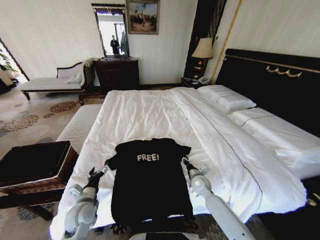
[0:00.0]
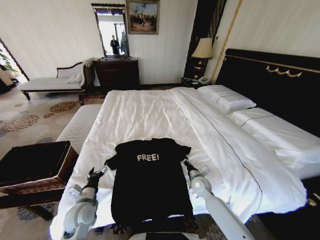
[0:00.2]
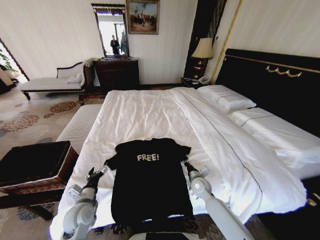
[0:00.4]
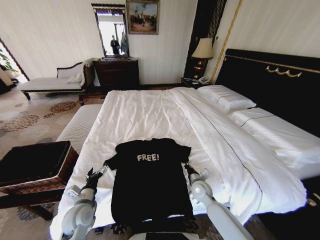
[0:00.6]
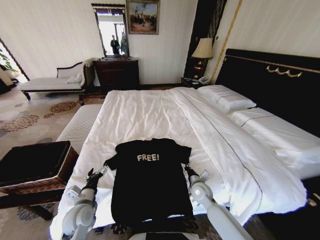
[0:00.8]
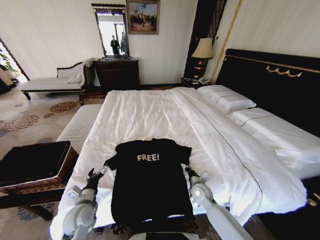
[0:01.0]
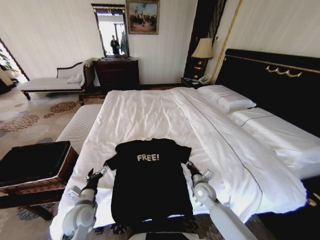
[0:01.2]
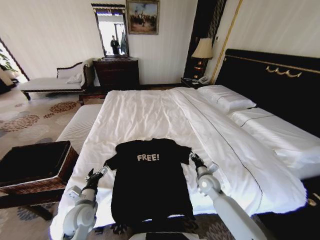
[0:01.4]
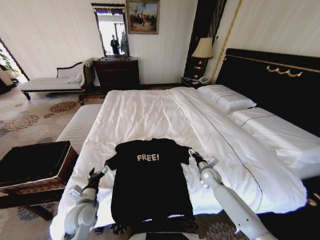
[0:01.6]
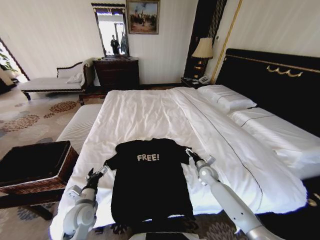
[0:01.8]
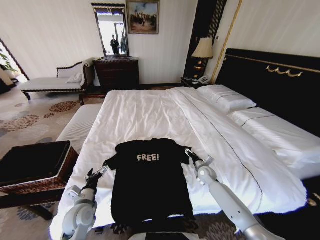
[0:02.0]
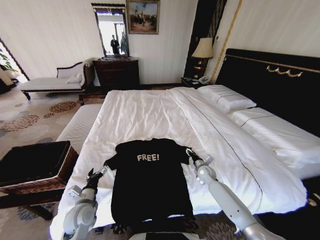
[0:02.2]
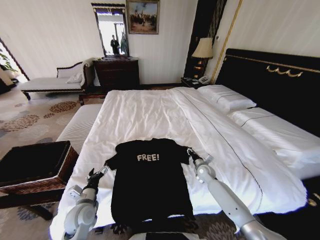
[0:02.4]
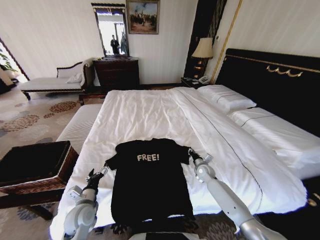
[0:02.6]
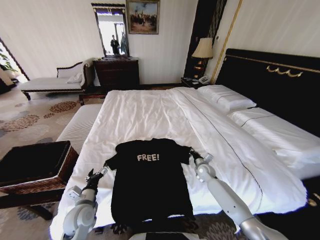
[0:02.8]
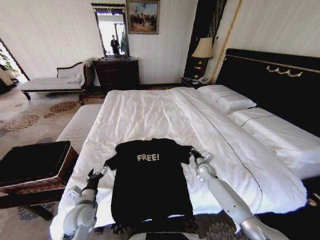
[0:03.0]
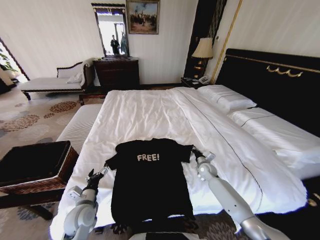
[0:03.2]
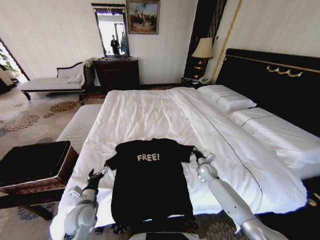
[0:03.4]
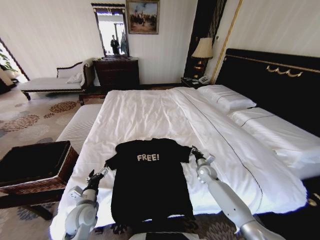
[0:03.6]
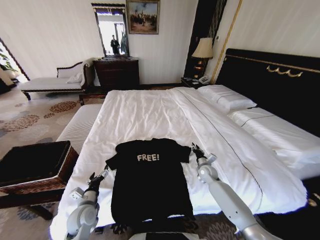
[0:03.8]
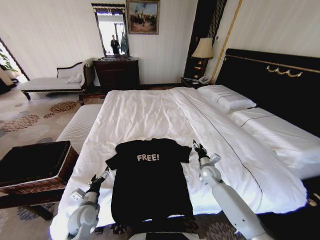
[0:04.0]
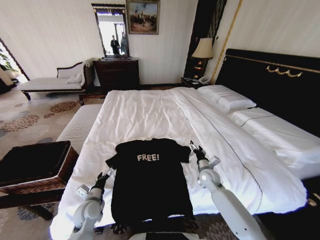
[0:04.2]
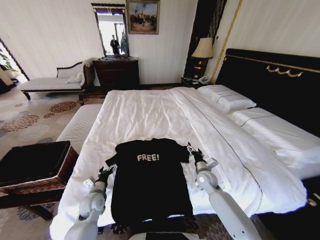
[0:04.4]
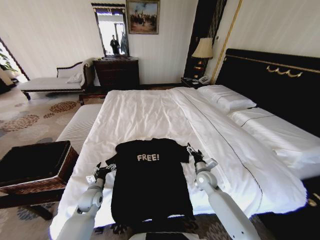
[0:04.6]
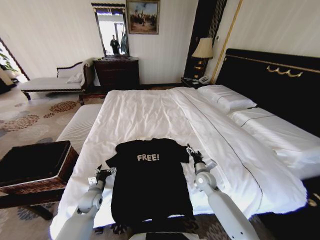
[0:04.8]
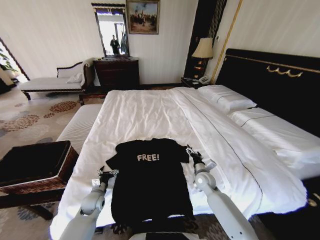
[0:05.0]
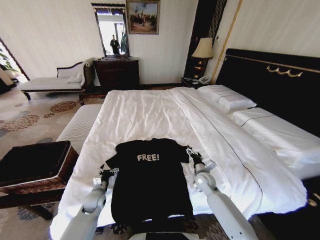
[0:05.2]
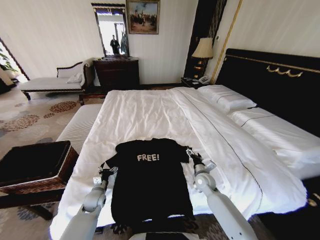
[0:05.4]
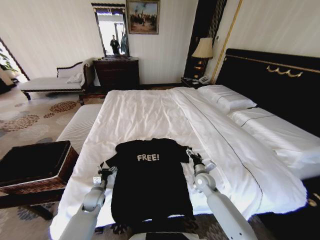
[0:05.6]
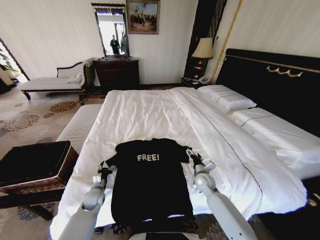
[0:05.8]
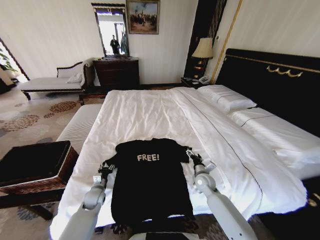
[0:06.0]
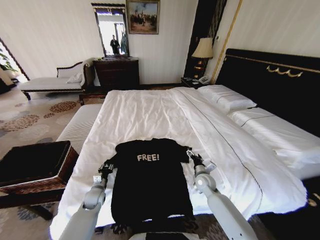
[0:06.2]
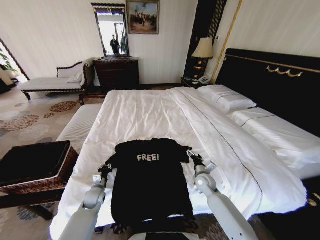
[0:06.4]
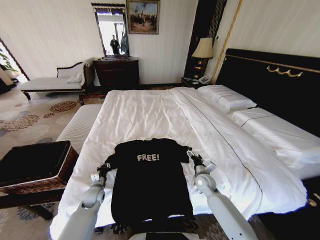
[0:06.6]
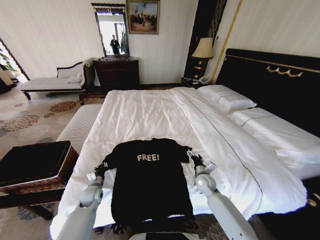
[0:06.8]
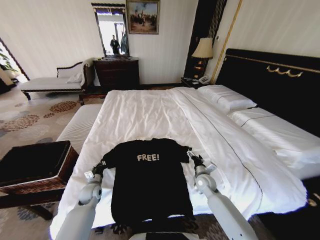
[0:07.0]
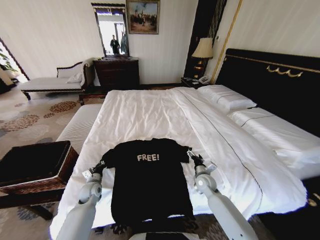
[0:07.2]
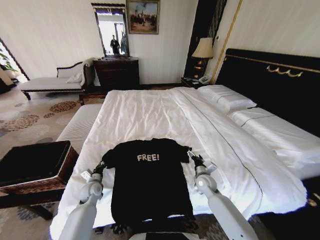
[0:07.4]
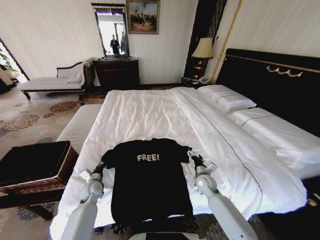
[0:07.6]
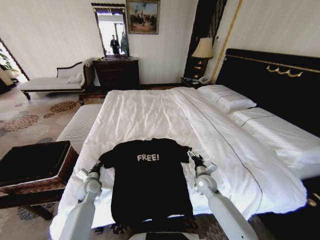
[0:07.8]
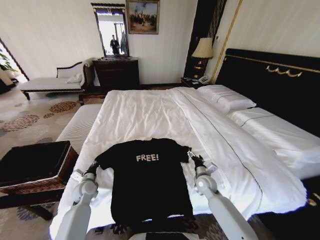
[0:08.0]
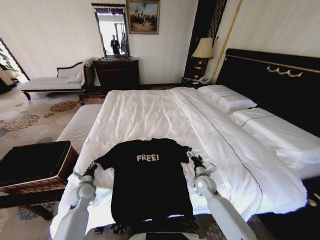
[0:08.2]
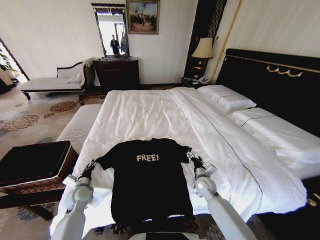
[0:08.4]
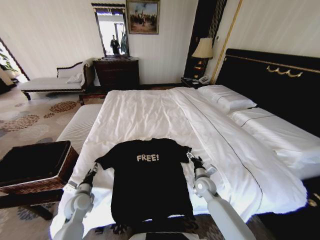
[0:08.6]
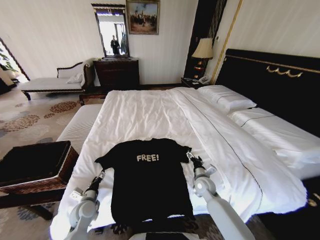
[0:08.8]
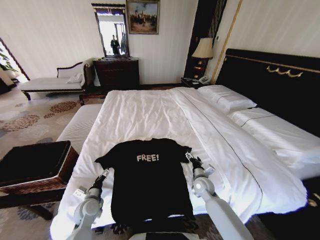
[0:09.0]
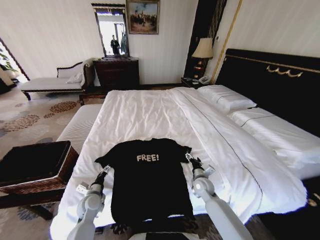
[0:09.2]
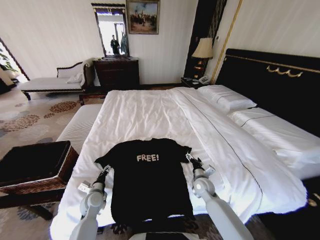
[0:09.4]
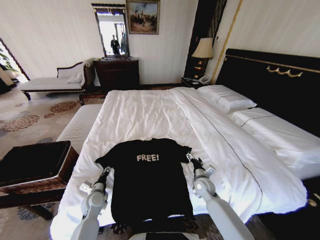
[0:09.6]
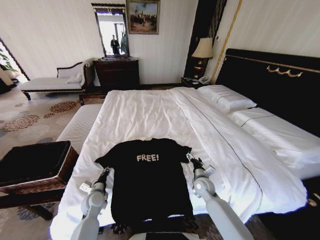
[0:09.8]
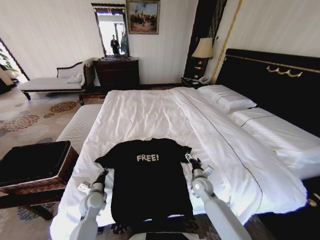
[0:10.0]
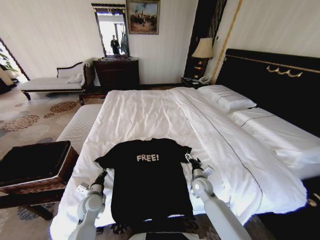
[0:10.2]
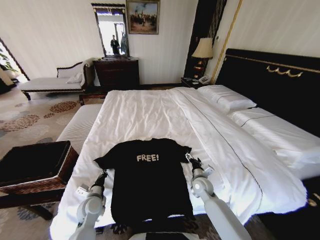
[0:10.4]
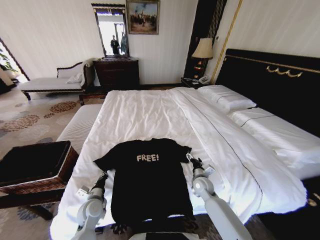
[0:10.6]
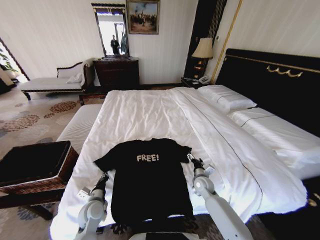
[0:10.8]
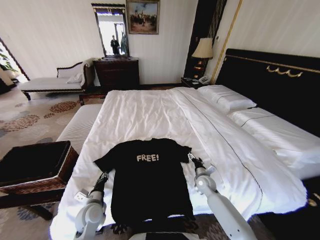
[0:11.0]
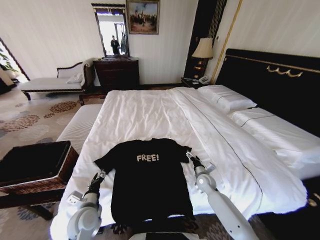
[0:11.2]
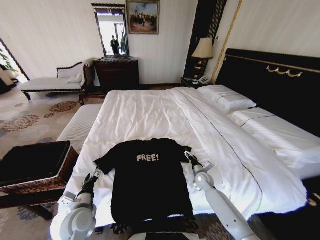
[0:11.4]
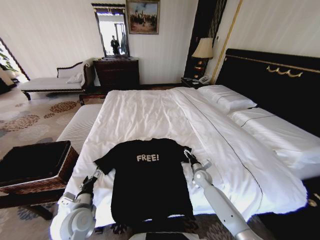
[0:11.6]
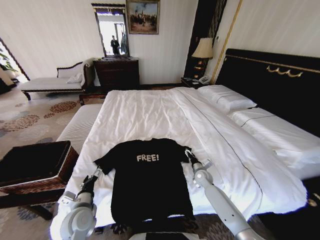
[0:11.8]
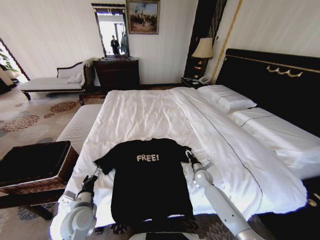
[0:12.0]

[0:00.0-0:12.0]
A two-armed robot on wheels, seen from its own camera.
Task of the whole recording: Fold the clothes on the bed and place them into the basket.
0:00.0 to 0:01.6: The right gripper shifts some 5 cm to the right, and closes and opens again.
0:01.6 to 0:03.0: The right gripper closes its fingers.
0:03.0 to 0:04.4: The left gripper heads forward, covering approximately 5 cm. The right gripper heads backward, covering approximately 5 cm, and opens up.
0:04.4 to 0:06.0: The left gripper is displaced downward by about 5 cm, and closes up.
0:06.0 to 0:07.6: The left gripper closes.
0:07.6 to 0:09.0: The left gripper travels backward by some 10 cm, and opens its fingers.
0:09.0 to 0:10.4: The left gripper closes its fingers.
0:10.4 to 0:12.0: The right gripper is displaced forward by about 5 cm, and closes its fingers. The left gripper heads upward and backward, covering some 10 cm, and opens.

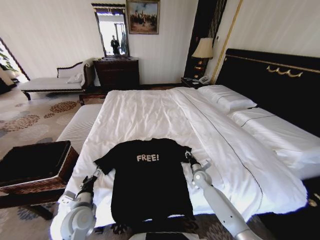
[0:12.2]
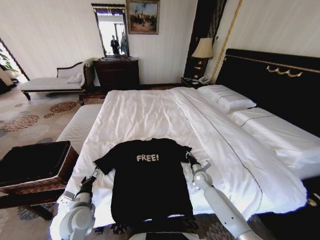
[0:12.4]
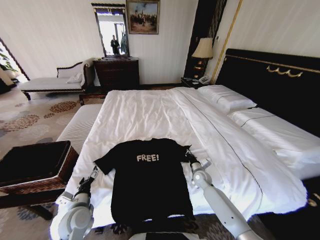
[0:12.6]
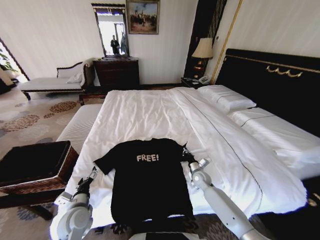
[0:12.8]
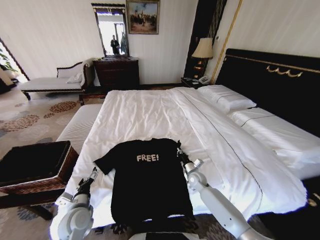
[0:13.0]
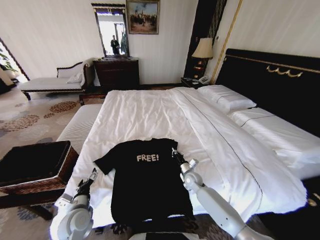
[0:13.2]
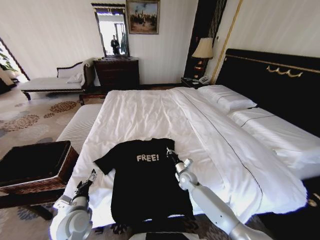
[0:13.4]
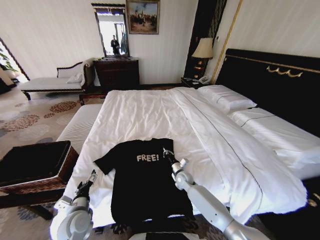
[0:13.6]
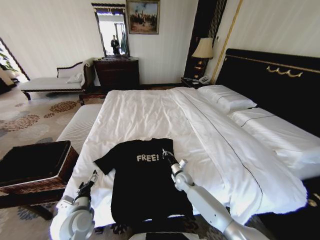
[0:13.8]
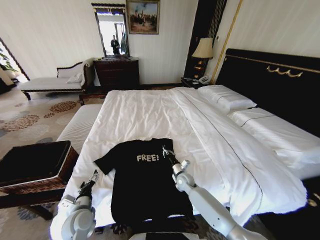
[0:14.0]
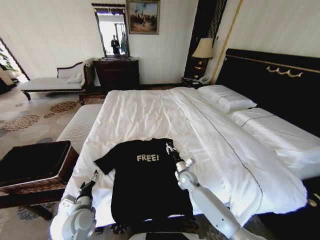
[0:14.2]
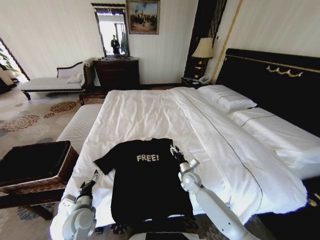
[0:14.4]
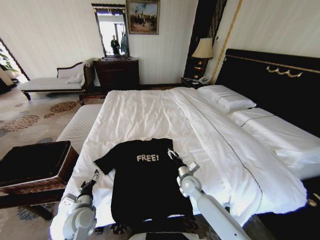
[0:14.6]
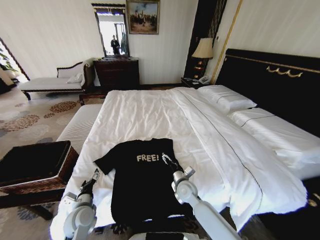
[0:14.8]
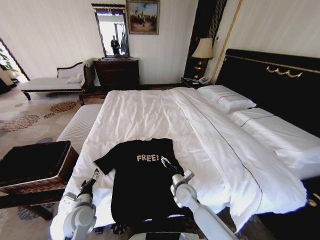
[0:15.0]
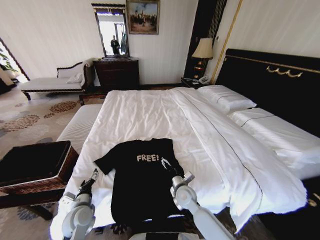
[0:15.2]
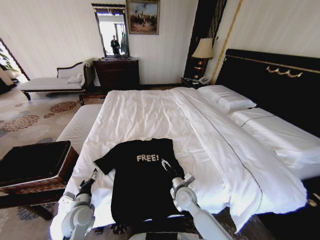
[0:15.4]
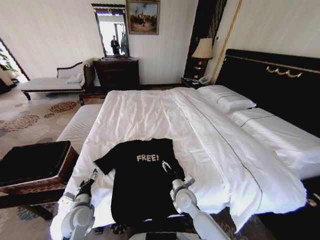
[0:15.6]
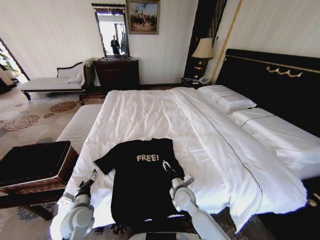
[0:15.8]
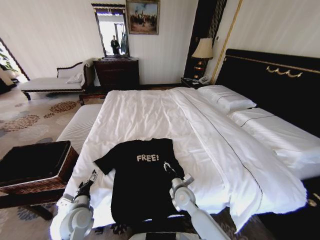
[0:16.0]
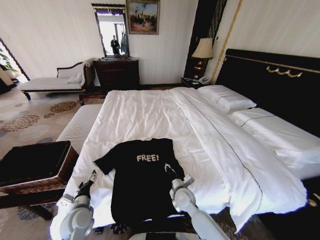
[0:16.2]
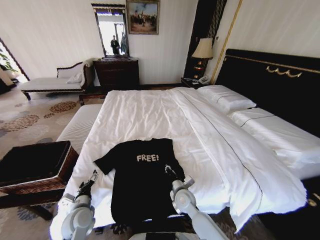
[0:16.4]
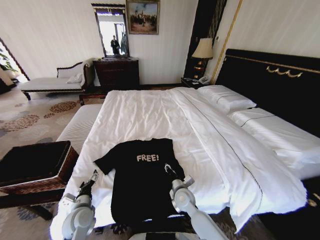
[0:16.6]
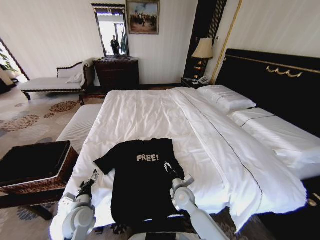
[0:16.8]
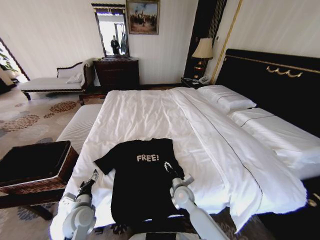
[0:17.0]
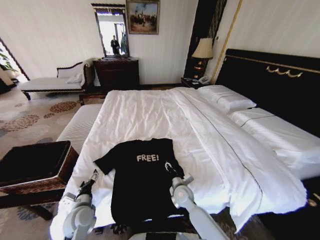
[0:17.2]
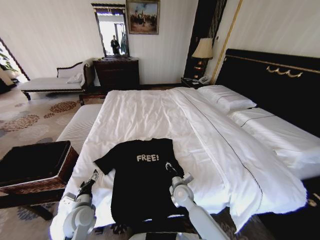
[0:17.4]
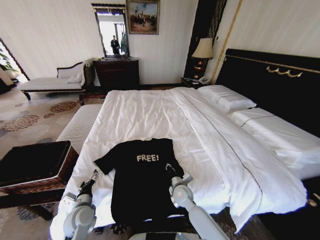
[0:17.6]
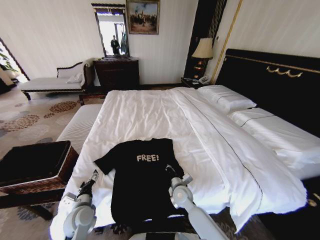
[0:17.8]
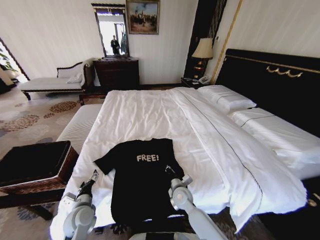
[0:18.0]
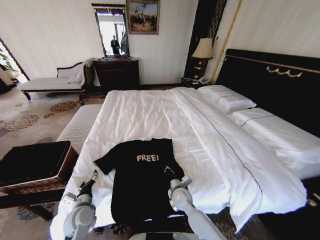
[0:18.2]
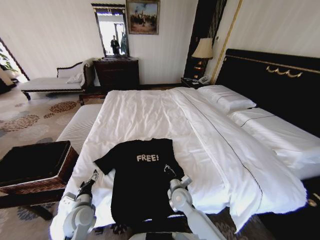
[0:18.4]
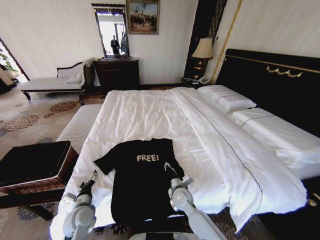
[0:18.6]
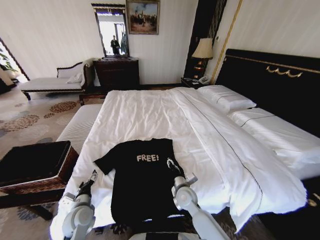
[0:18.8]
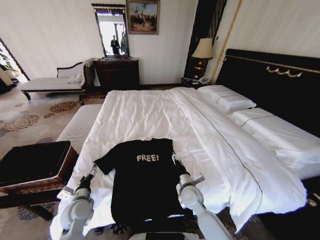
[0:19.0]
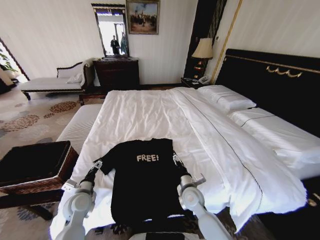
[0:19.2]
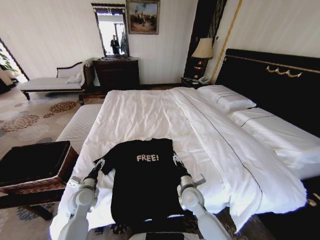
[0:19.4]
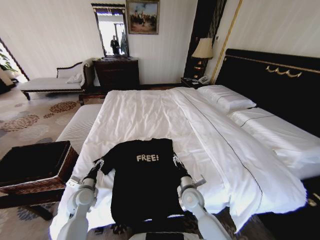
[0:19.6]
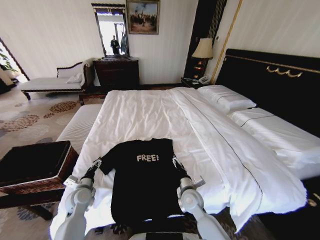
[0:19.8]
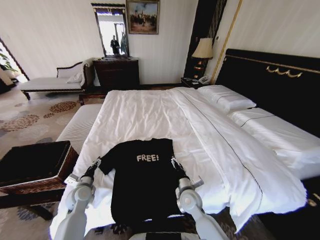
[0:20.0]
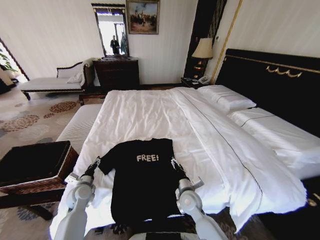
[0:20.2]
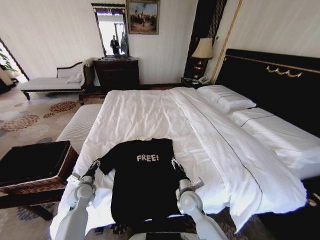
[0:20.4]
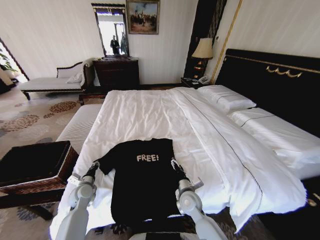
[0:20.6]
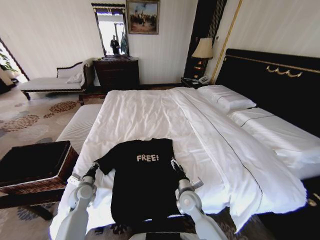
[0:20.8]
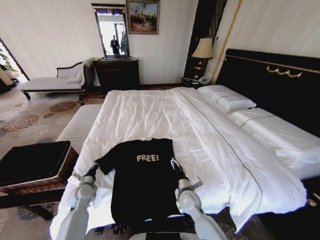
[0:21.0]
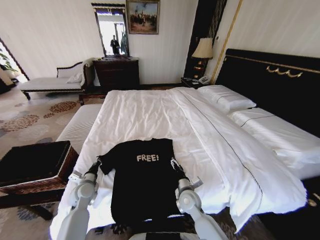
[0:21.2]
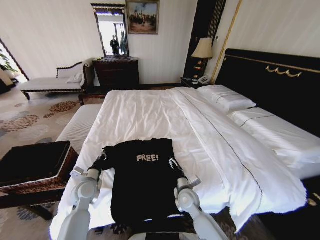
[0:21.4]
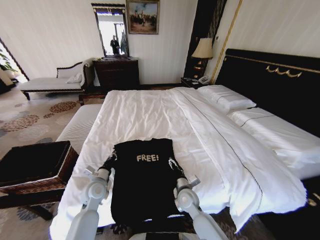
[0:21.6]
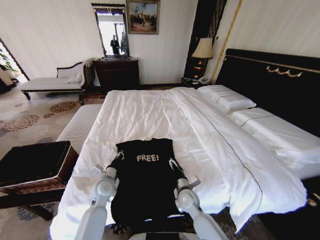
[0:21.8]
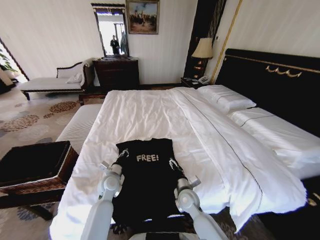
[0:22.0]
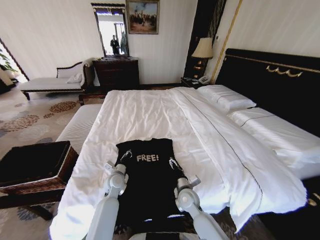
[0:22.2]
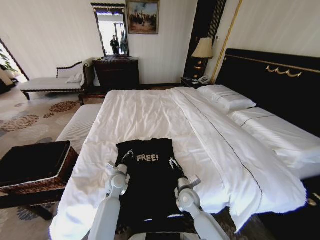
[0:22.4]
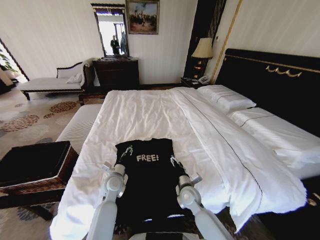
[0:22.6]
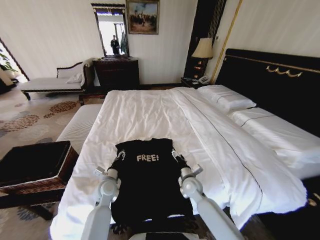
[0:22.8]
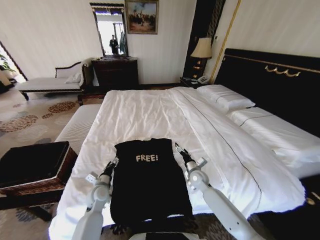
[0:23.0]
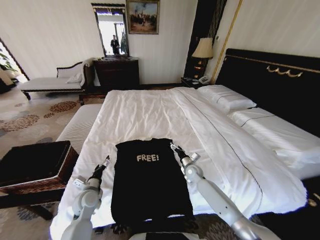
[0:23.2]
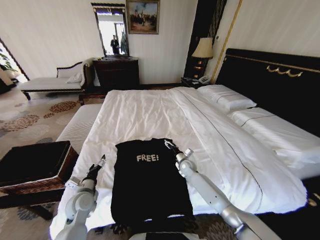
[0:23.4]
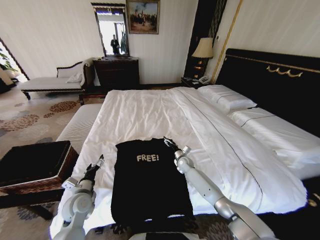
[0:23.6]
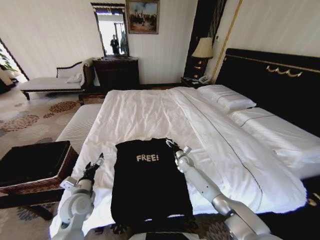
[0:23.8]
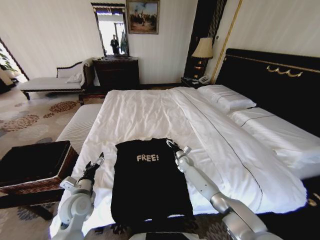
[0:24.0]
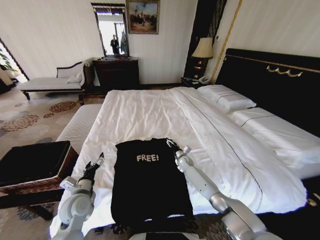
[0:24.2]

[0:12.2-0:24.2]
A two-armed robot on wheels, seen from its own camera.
Task of the whole recording: Fold the clothes on the bed and place them into the basket.
0:12.2 to 0:13.8: The right gripper moves to the left, some 10 cm, and closes up.
0:13.8 to 0:15.2: The right gripper shifts approximately 10 cm backward and upward, and opens.
0:15.2 to 0:16.6: The right gripper closes its fingers.
0:16.6 to 0:18.2: The right gripper opens and closes again.
0:18.2 to 0:19.8: The right gripper moves roughly 5 cm, and opens up; the left gripper shifts roughly 5 cm forward.
0:19.8 to 0:21.2: The left gripper closes up.
0:21.2 to 0:22.6: The left gripper is displaced to the right by roughly 15 cm.
0:22.6 to 0:24.2: The left gripper moves to the left and backward, approximately 15 cm, and opens its fingers. Meanwhile the right gripper goes roughly 20 cm forward.
